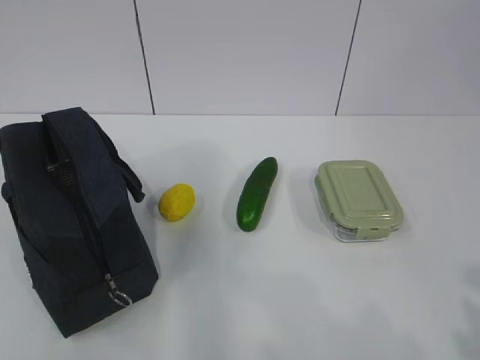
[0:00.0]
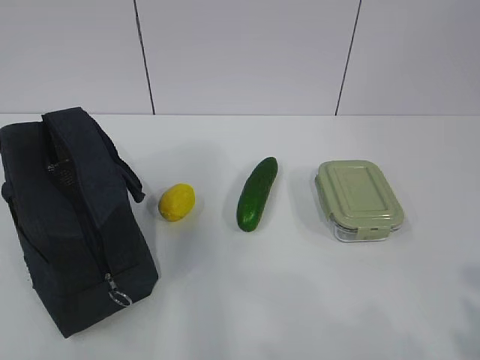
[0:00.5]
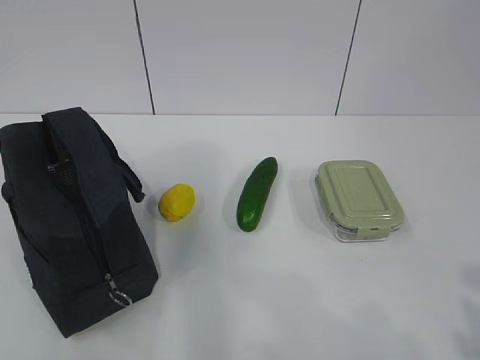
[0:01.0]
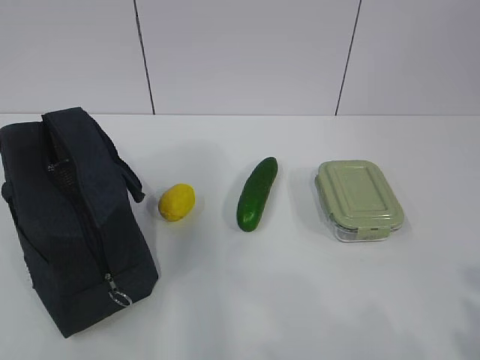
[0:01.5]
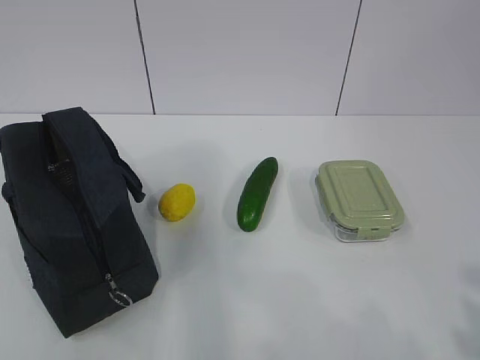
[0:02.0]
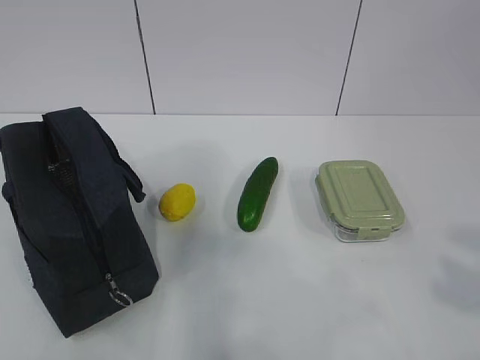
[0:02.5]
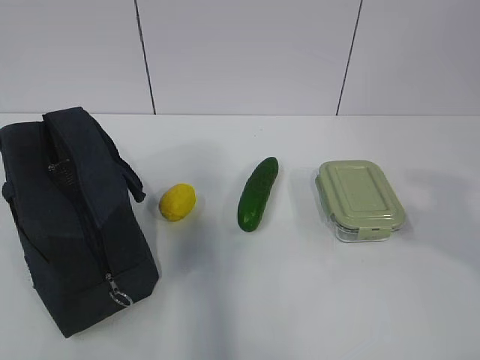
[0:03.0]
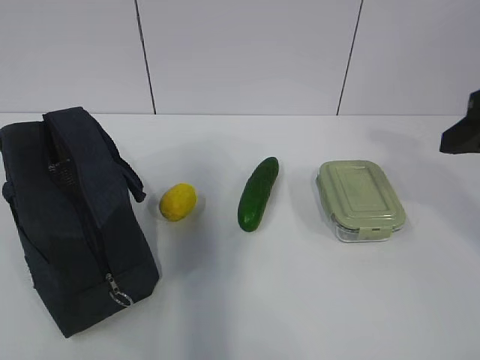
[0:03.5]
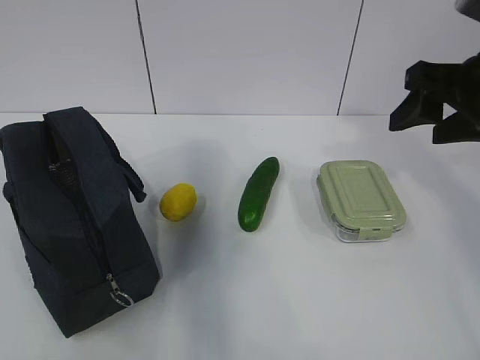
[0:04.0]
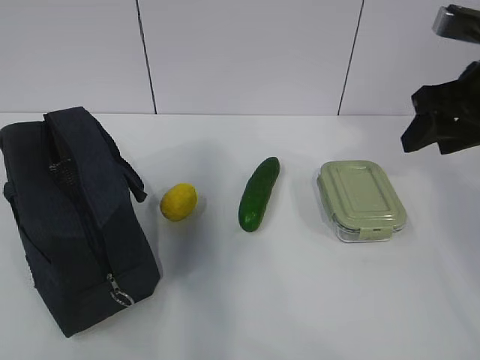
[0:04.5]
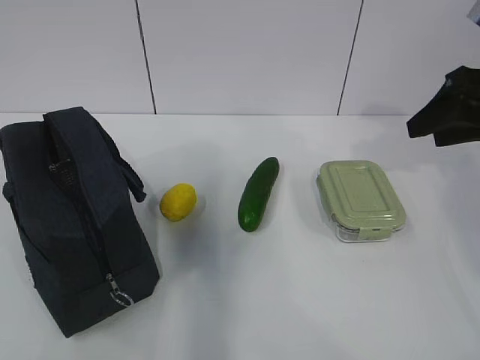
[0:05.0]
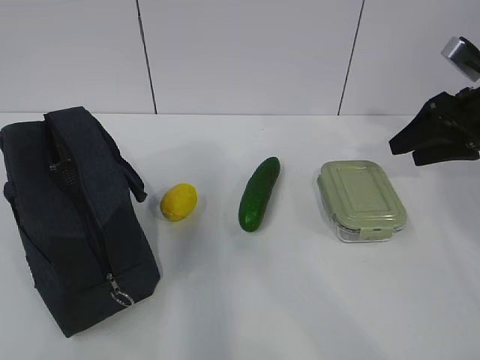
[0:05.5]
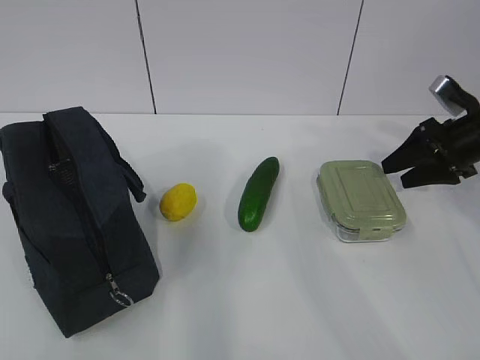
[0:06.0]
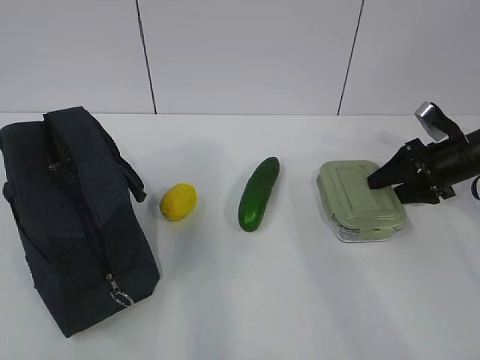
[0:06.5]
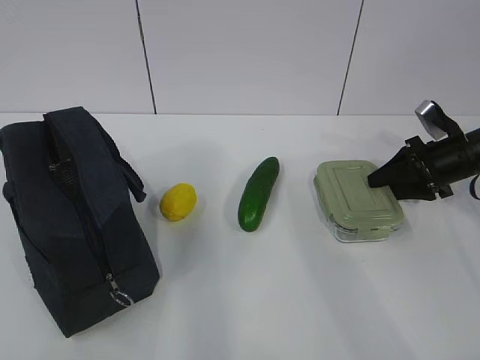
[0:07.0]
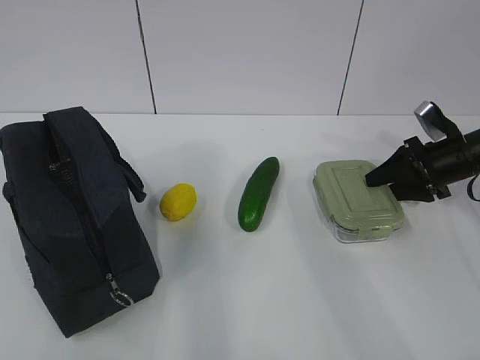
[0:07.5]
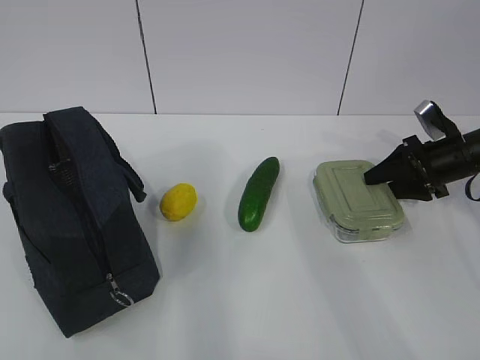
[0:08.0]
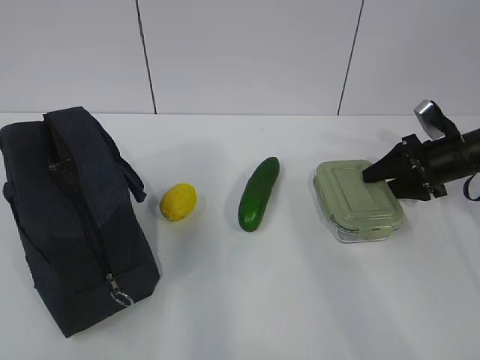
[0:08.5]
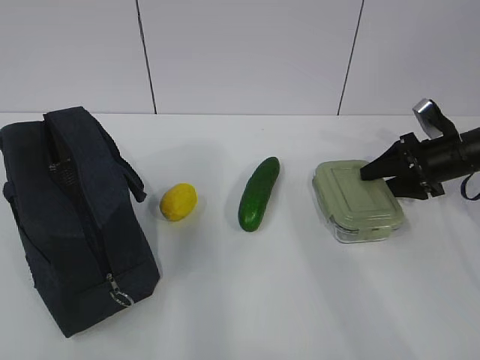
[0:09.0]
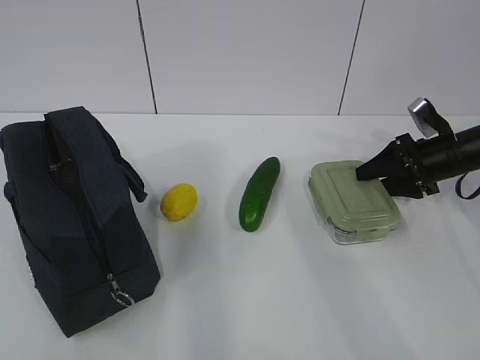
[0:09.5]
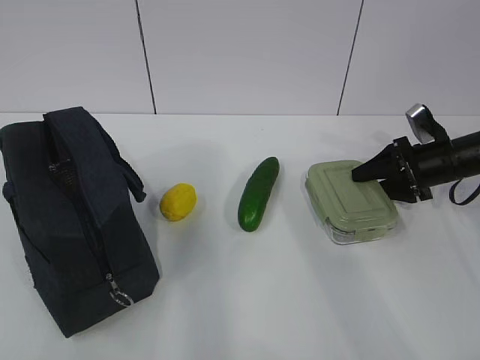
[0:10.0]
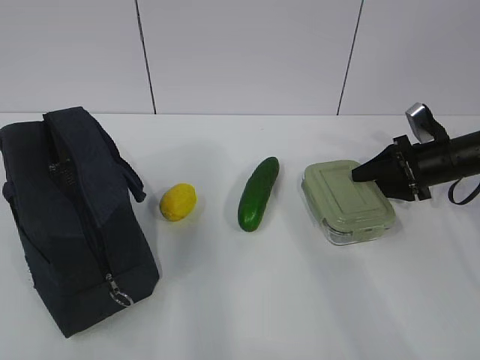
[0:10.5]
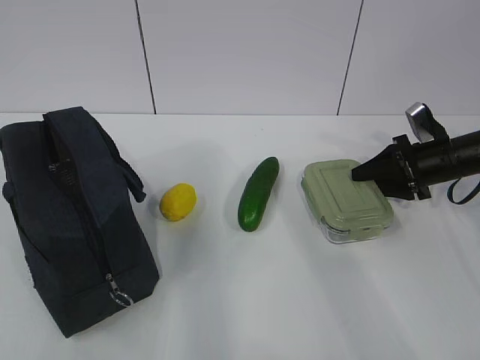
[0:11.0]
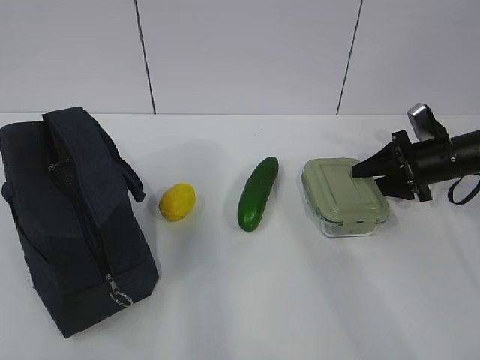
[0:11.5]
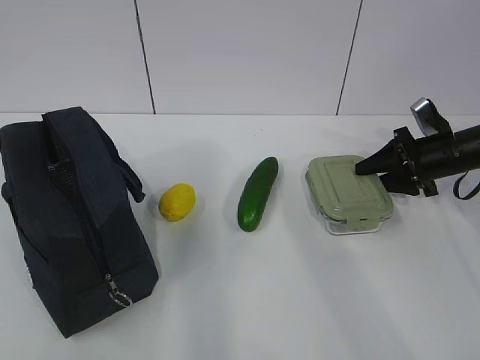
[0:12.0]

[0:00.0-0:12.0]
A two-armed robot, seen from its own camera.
Step, 0:00.0 to 0:10.5: Grab the lunch box with your right hand.
0:02.0 to 0:04.0: The right gripper shifts some 30 cm forward.
0:04.0 to 0:06.0: The right gripper goes roughly 20 cm downward, forward and to the right.
0:06.0 to 0:08.0: The right gripper is displaced downward by some 5 cm.
0:08.0 to 0:12.0: The grippers stay close to where they were, moving slightly.

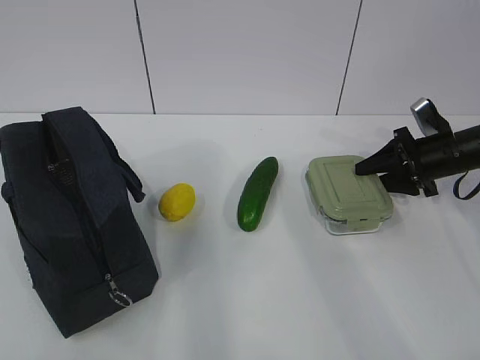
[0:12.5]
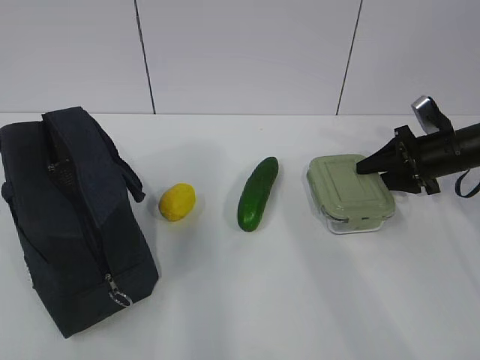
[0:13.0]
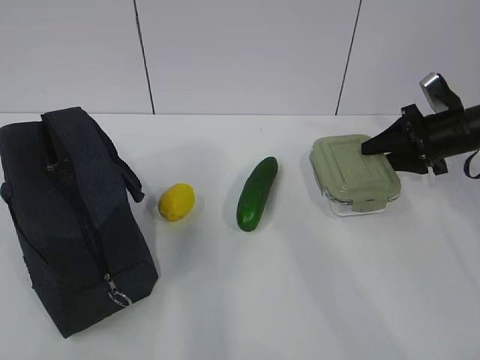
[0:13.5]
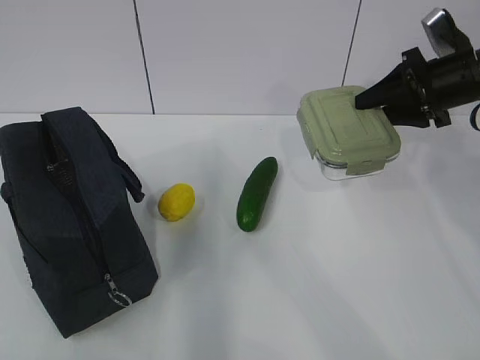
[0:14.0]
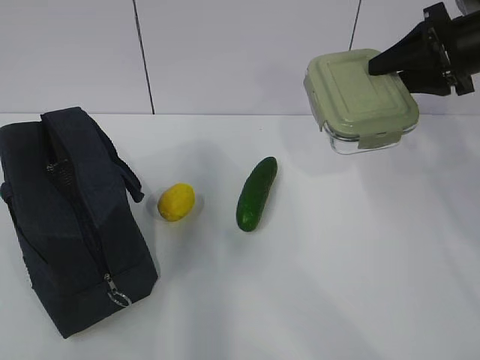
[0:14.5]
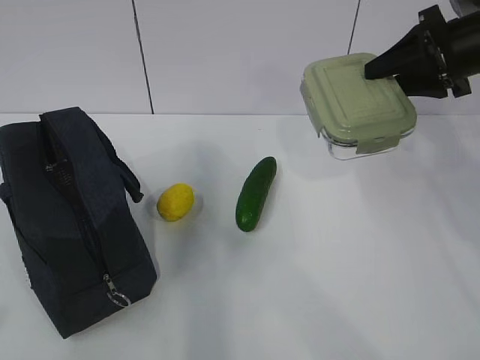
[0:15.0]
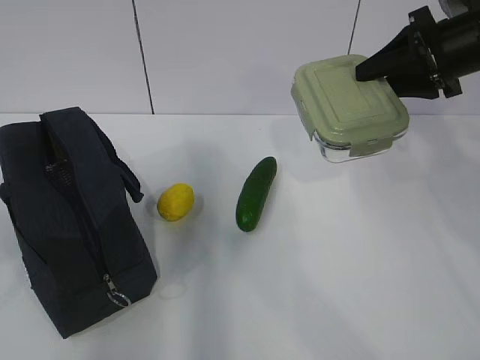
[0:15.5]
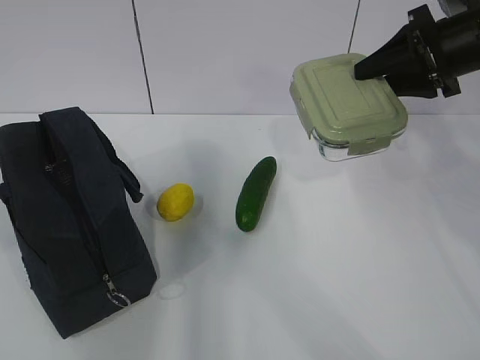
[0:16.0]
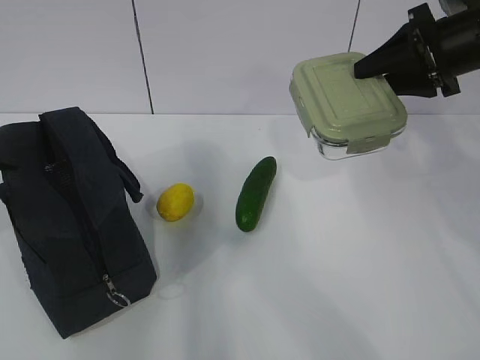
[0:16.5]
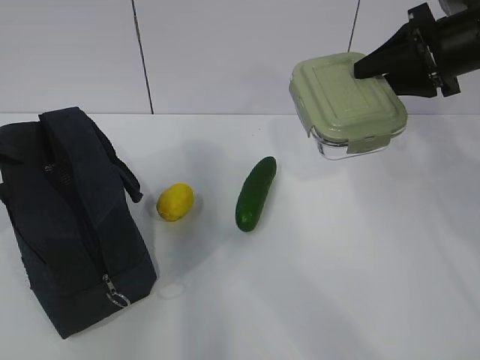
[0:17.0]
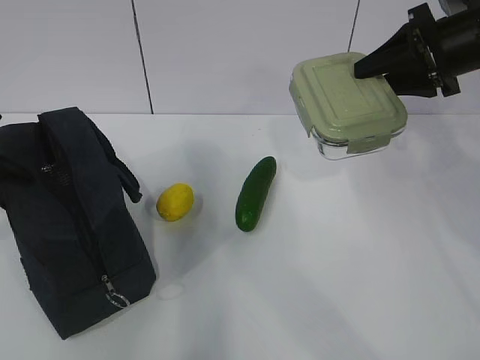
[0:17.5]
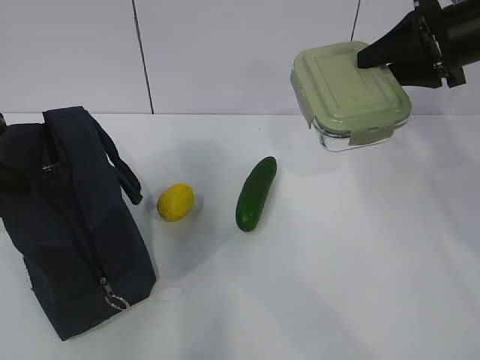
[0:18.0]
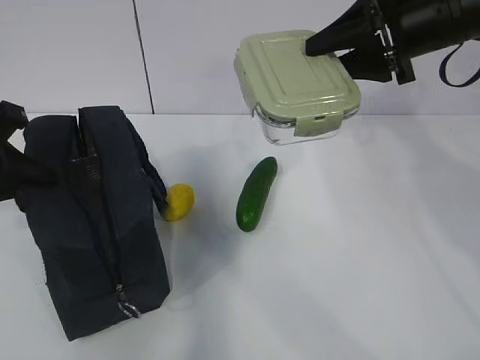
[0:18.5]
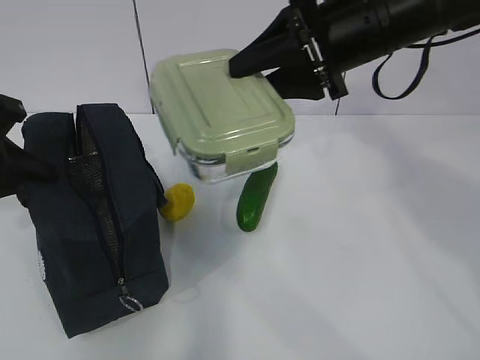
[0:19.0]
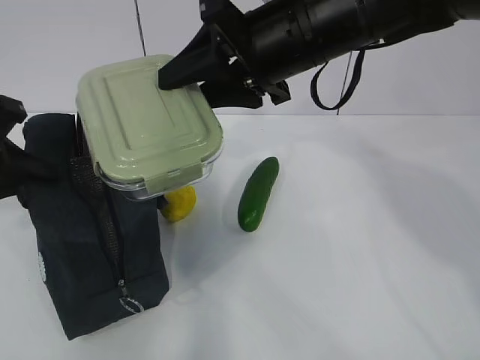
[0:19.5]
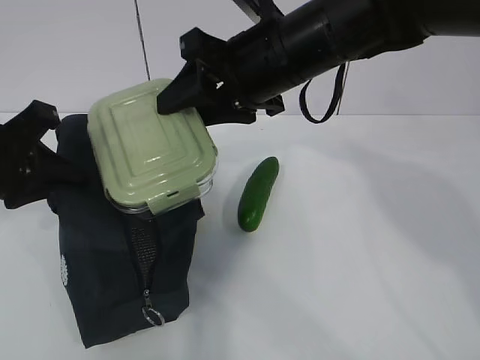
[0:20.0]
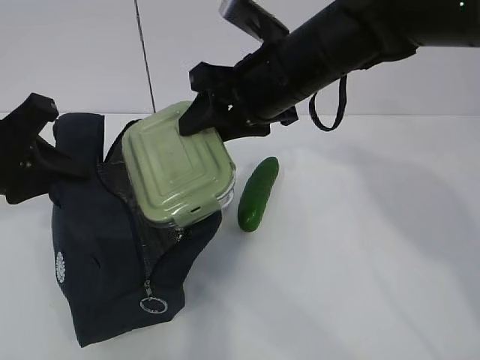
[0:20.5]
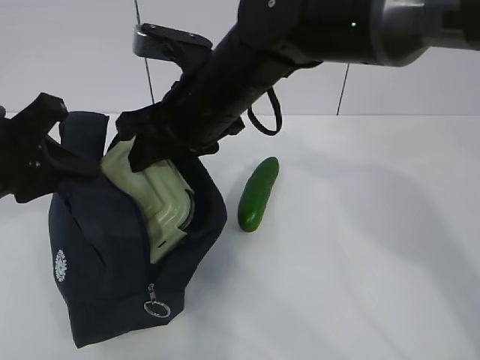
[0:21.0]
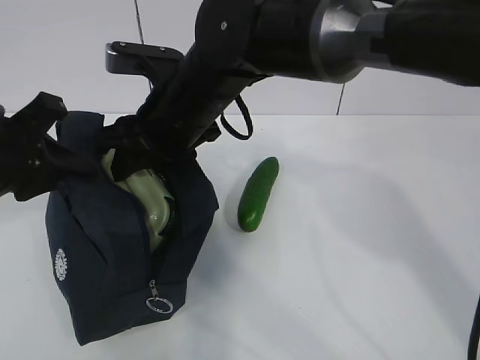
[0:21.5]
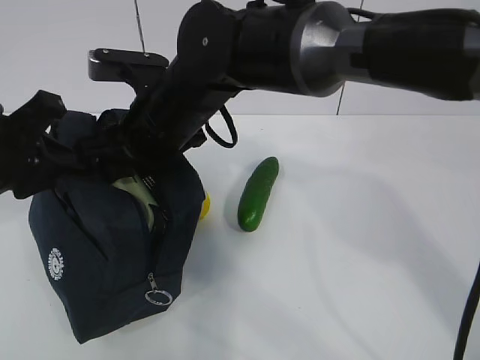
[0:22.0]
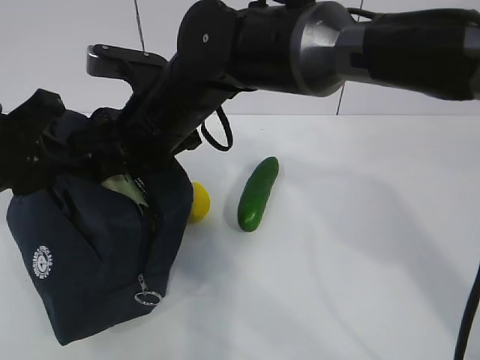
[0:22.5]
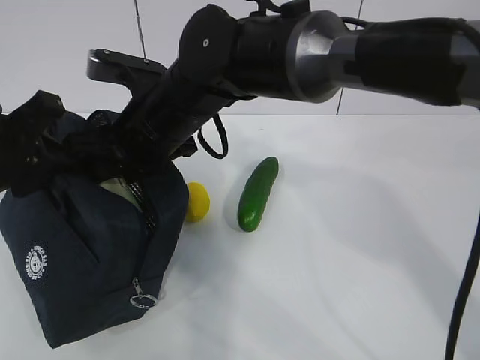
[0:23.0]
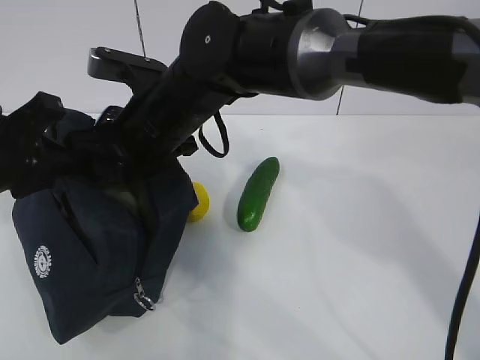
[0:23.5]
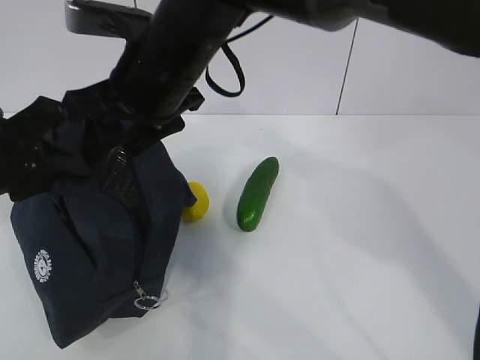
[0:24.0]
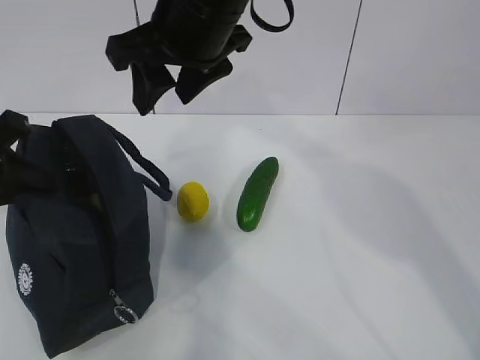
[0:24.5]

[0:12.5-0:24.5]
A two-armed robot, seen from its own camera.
Step, 0:12.5 to 0:16.5: Grab the lunch bag with your left hand.
Step, 0:17.0 to 0:19.5: Place it into the bag with your right hand.
0:12.5 to 0:14.5: The right gripper heads upward, covering about 20 cm.
0:14.5 to 0:16.5: The left gripper moves forward, approximately 20 cm, and opens its fingers.
0:16.5 to 0:18.5: The left gripper closes its fingers, while the right gripper is displaced to the left by approximately 5 cm.
0:18.5 to 0:20.5: The right gripper heads to the left, covering some 15 cm.
0:20.5 to 0:22.5: The right gripper is displaced to the left by approximately 10 cm.
0:22.5 to 0:24.5: The right gripper travels upward by some 10 cm.

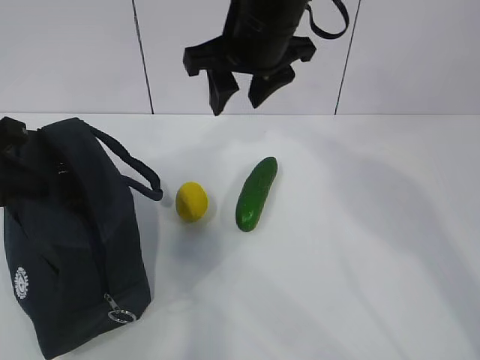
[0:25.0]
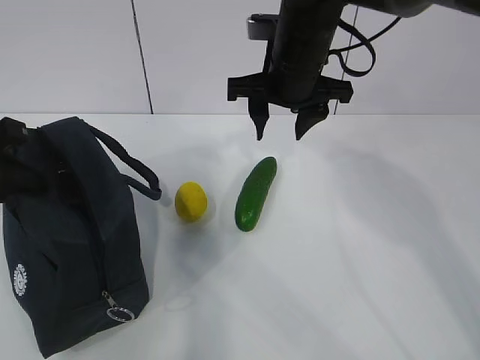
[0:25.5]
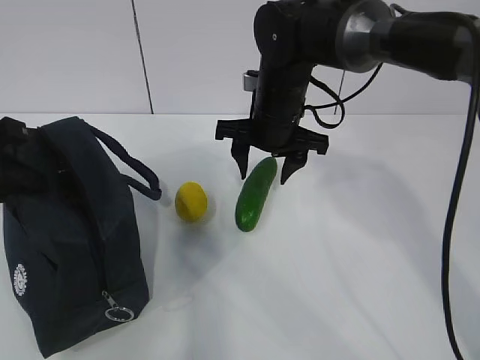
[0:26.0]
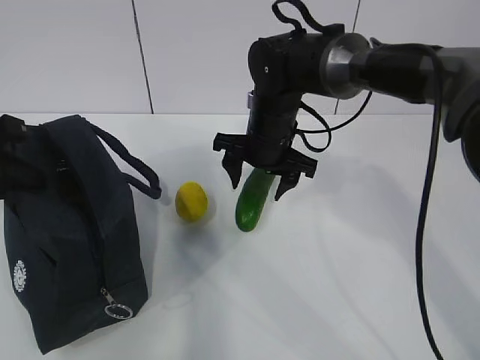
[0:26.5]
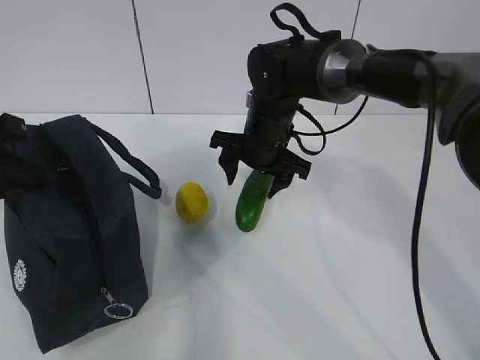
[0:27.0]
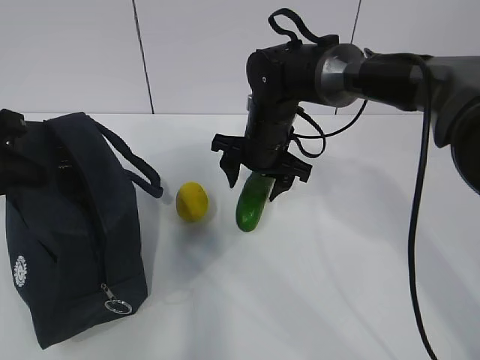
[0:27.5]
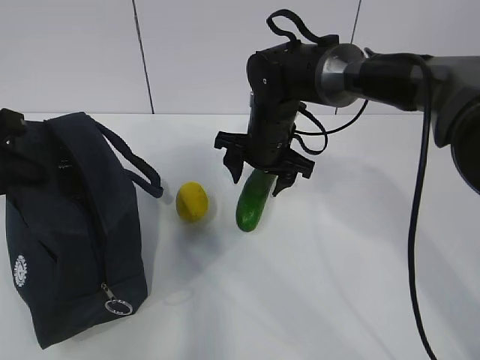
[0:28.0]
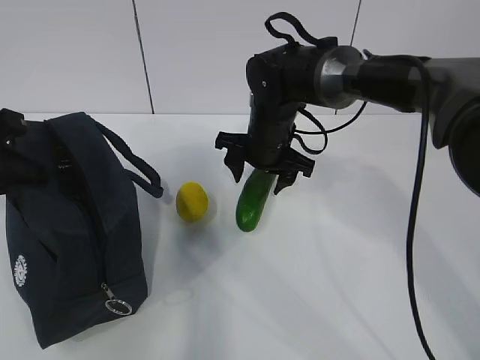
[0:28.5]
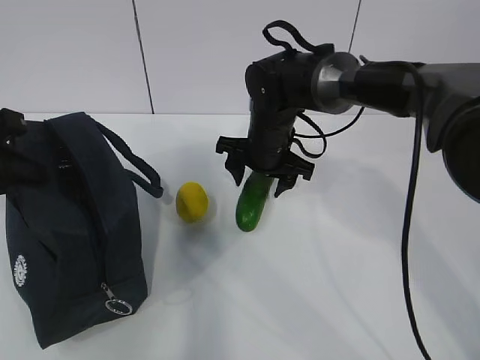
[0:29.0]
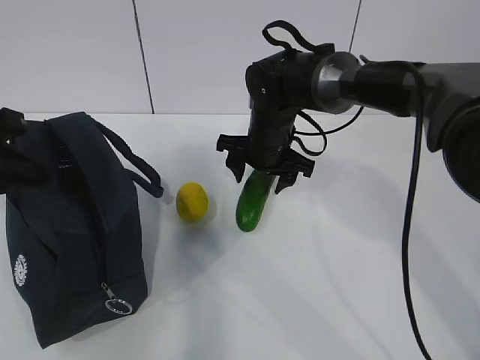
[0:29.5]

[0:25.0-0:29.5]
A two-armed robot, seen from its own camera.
Step, 0:26.0 to 0:29.0: Place it into the bag with your right hand.
0:25.0 to 0:27.0: The right gripper is displaced downward by some 15 cm.
0:27.0 to 0:29.5: The grippers make only small movements.
